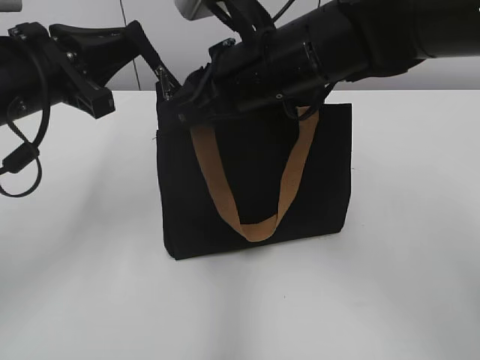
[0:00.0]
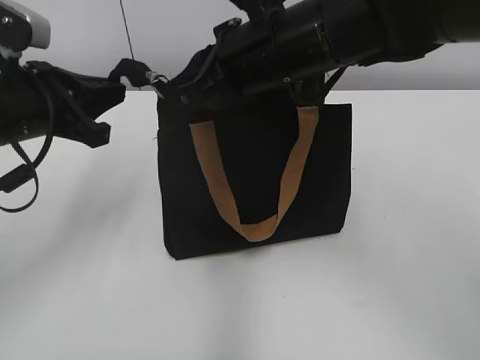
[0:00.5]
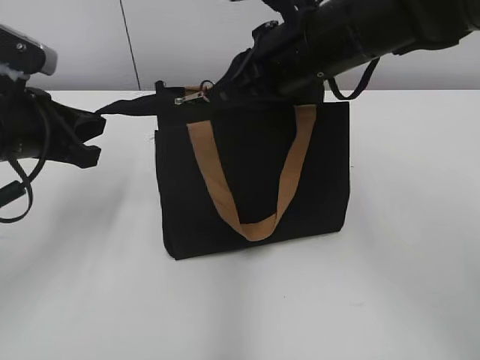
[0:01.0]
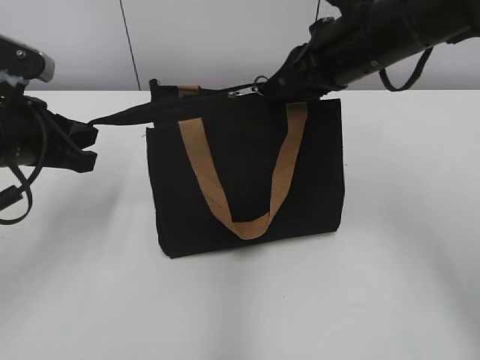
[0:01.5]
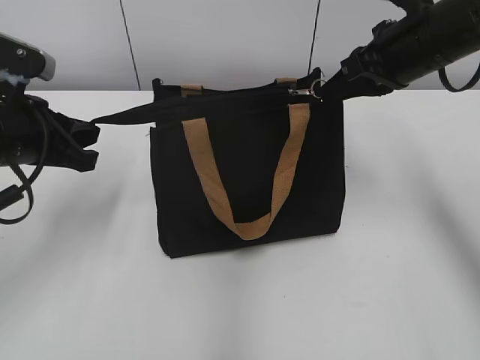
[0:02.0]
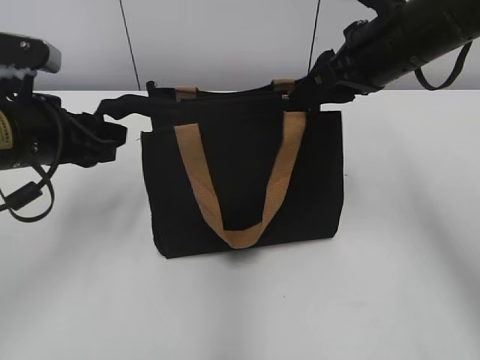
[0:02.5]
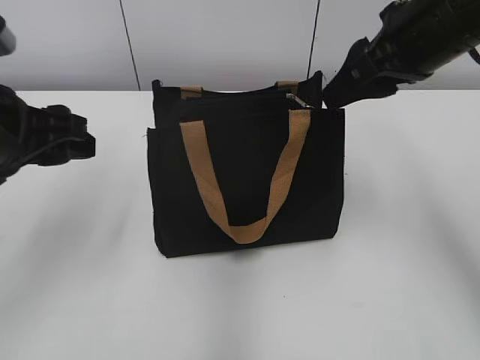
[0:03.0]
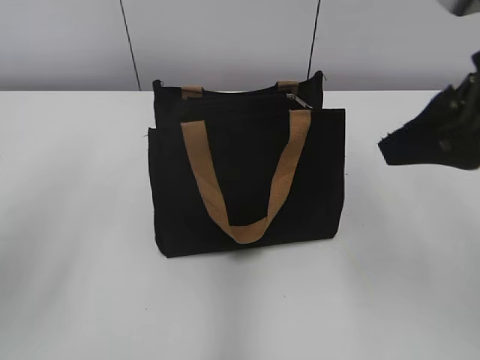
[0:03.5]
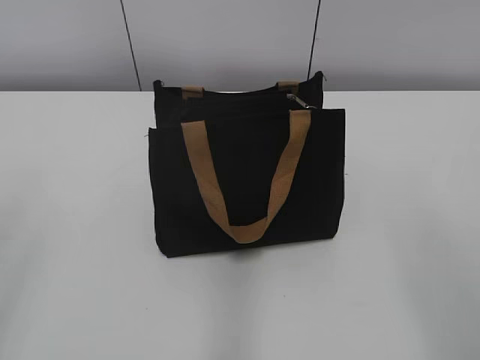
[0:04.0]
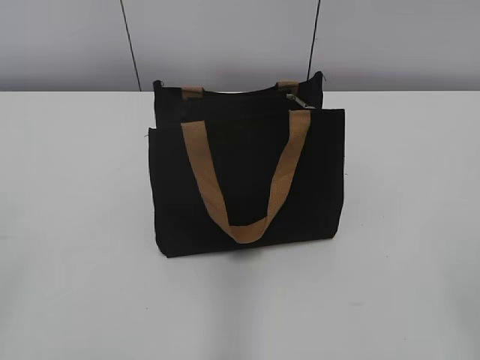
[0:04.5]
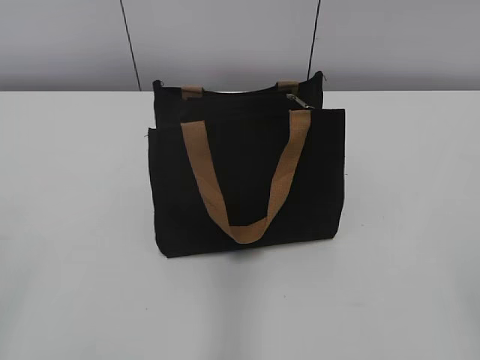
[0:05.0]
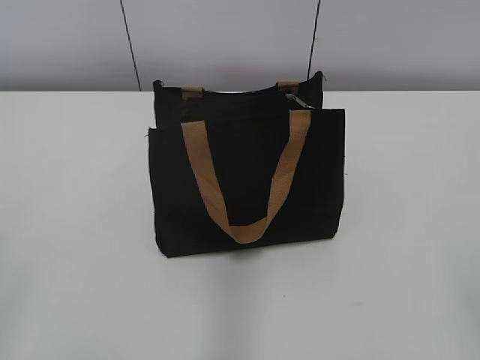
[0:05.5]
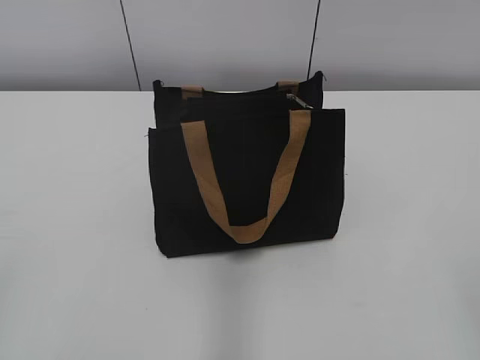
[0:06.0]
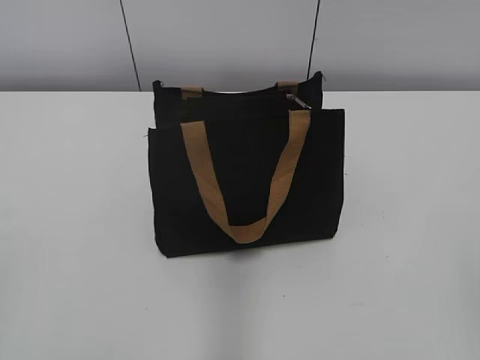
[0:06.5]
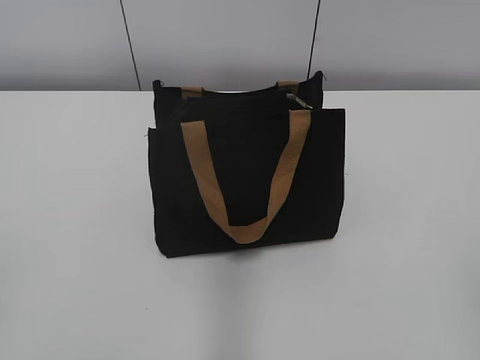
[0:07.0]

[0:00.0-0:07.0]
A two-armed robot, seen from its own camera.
Step, 0:00.0 to 0:02.0: Zip up the bag with your right hand.
0:00.0 to 0:02.0: The left gripper changes place by roughly 5 cm. Meanwhile the right gripper moves to the right, about 15 cm, and closes.
0:02.0 to 0:03.5: The left gripper moves backward and upward, about 15 cm, and opens up. The right gripper goes about 15 cm backward, and opens up.
0:03.5 to 0:05.0: The right gripper travels backward by roughly 25 cm.

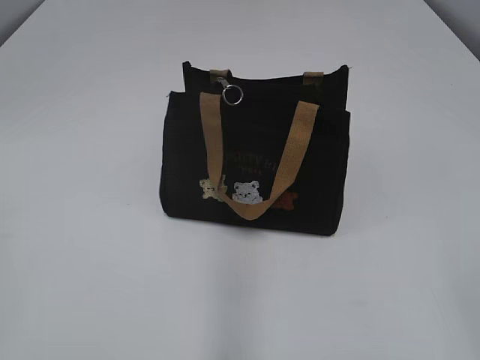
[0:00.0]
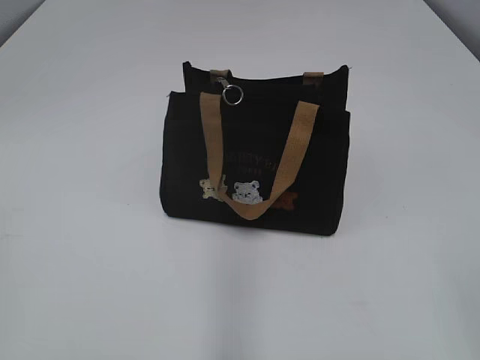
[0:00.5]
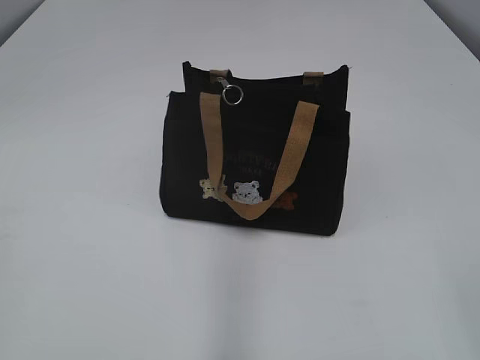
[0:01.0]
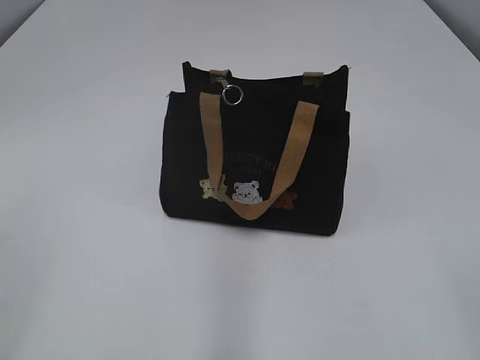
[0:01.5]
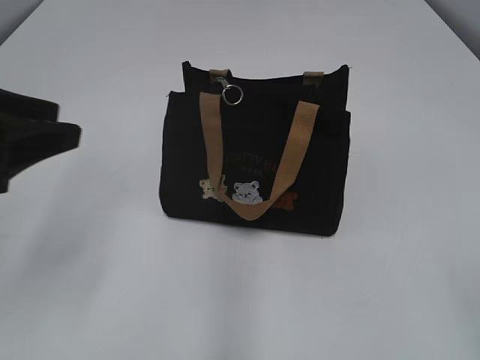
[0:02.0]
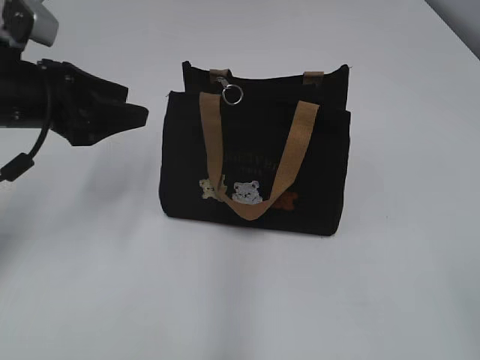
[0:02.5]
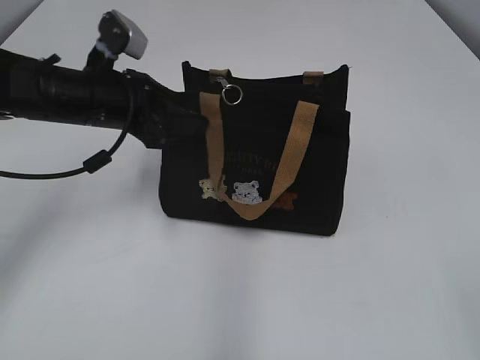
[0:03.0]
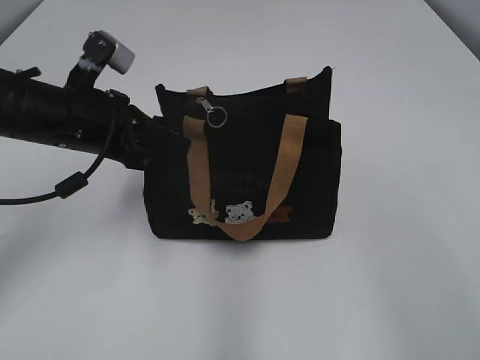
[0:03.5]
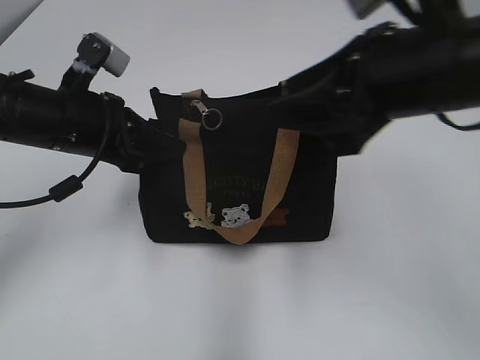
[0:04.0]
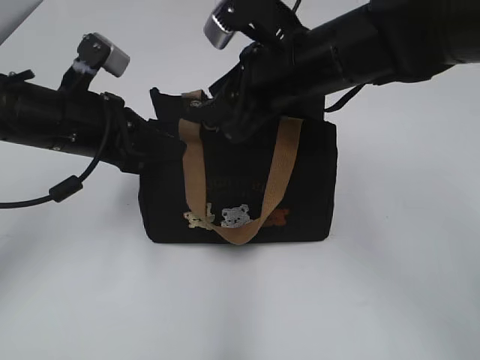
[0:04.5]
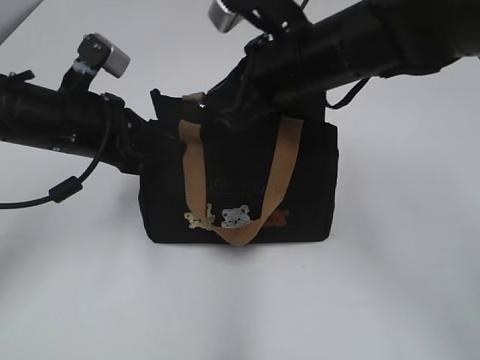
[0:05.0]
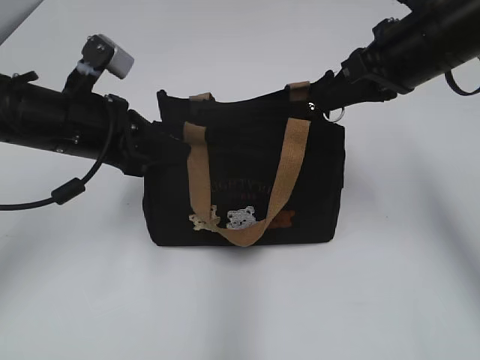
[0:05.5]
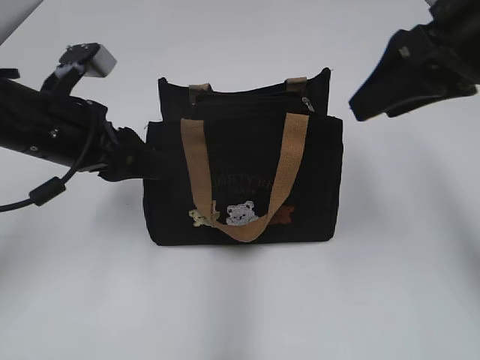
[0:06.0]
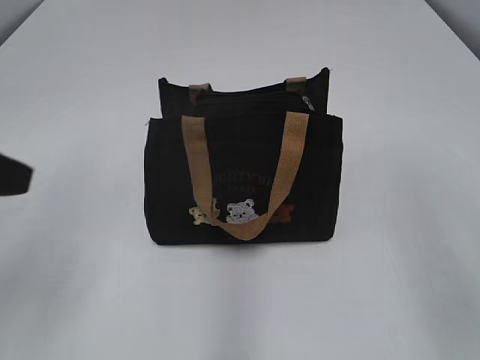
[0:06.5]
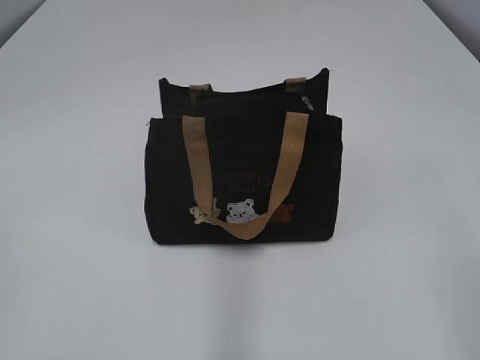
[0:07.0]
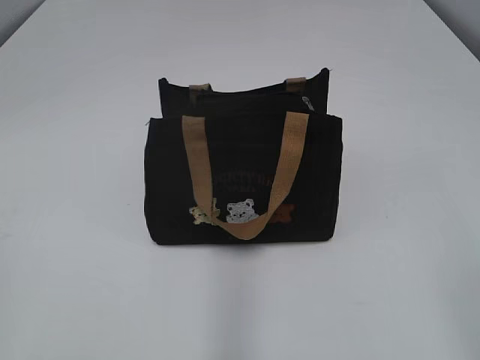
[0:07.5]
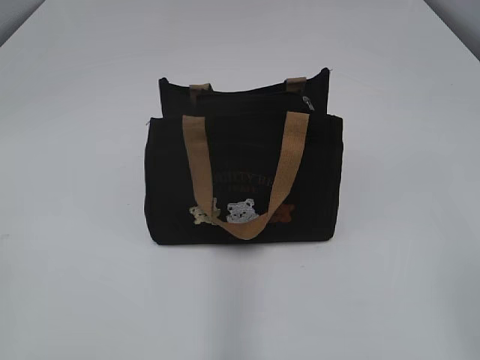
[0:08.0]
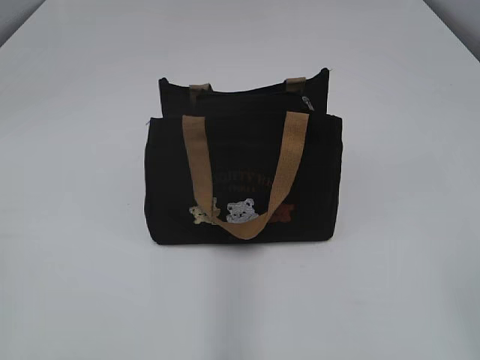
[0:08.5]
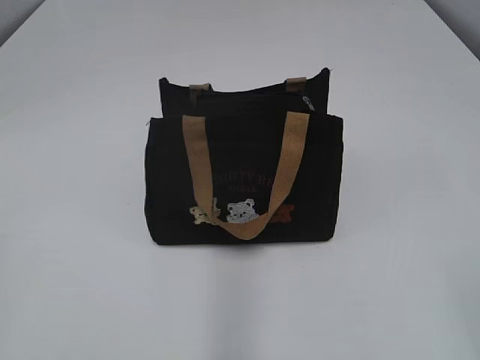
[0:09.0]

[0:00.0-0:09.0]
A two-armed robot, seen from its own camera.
Step, 0:00.0 to 0:05.5: Pull open the zipper with your right hand.
0:02.0 to 0:04.5: The right gripper heads forward and to the left, covering about 40 cm. Meanwhile the left gripper travels forward, to the right and downward by some 15 cm, and closes its fingers.
0:04.5 to 0:07.0: The left gripper is displaced backward and to the left by some 30 cm, and opens; the right gripper travels backward and to the right by roughly 35 cm, and closes, then reopens.
